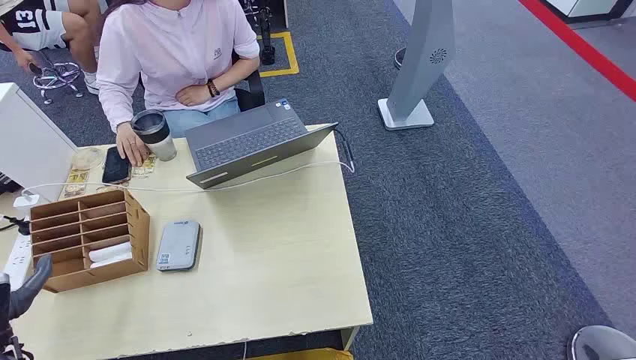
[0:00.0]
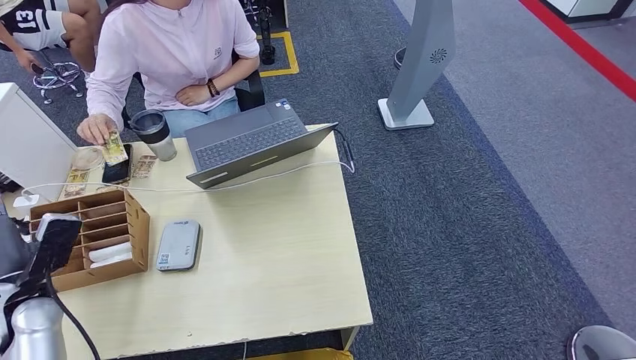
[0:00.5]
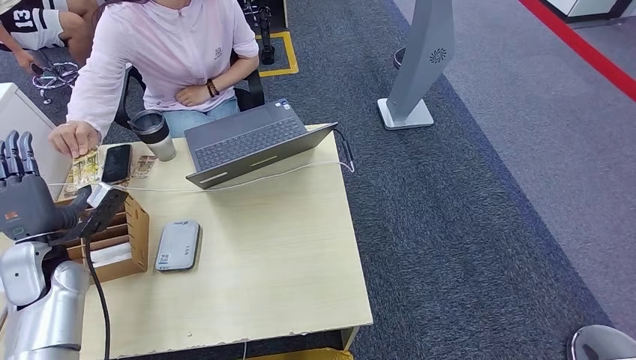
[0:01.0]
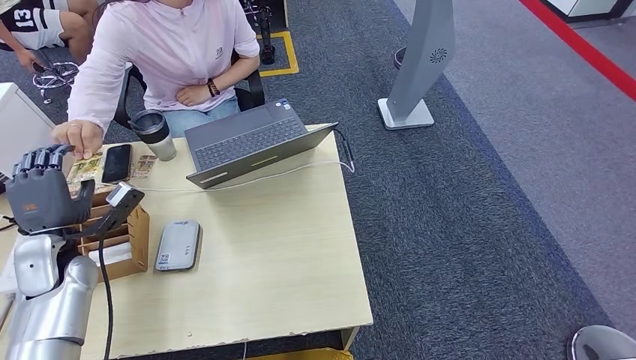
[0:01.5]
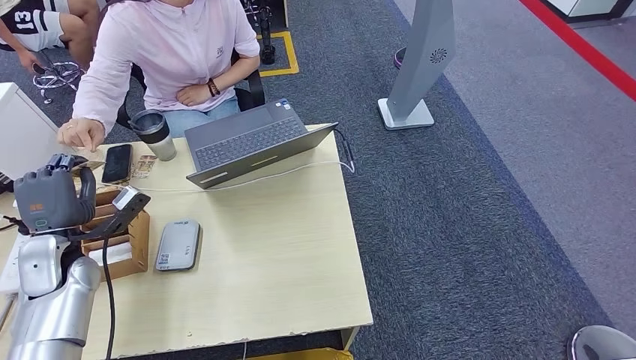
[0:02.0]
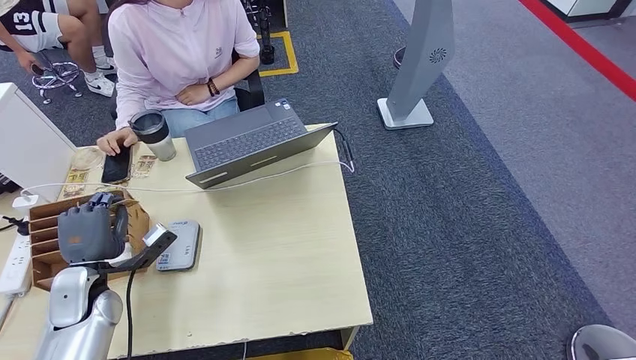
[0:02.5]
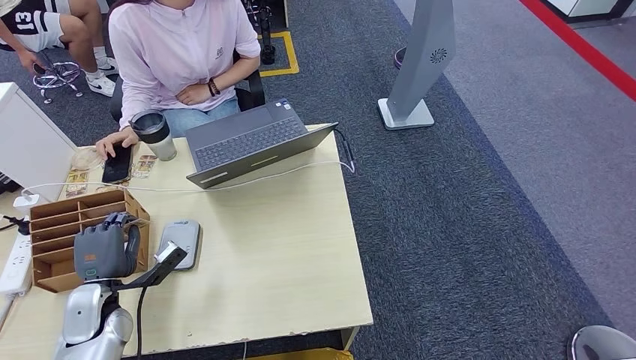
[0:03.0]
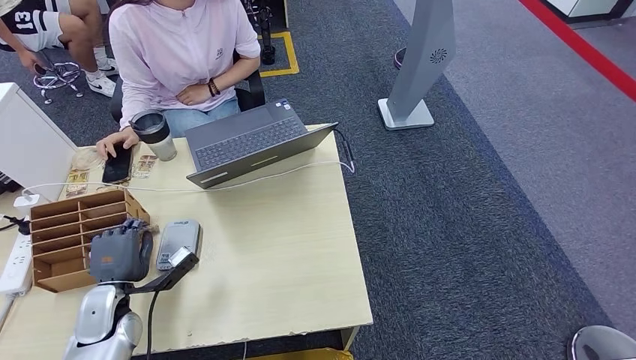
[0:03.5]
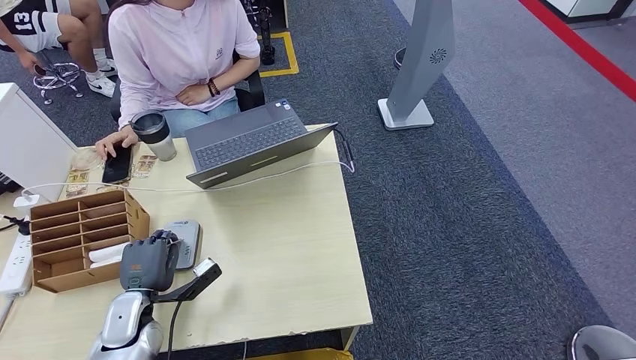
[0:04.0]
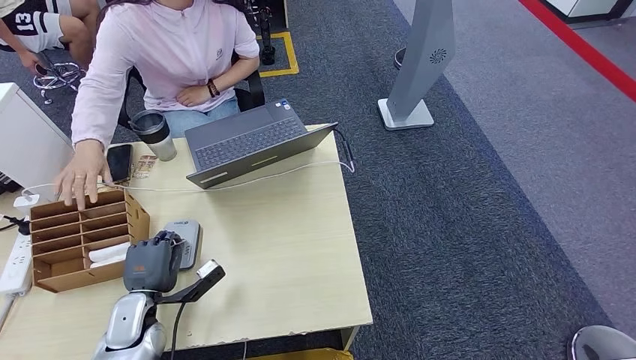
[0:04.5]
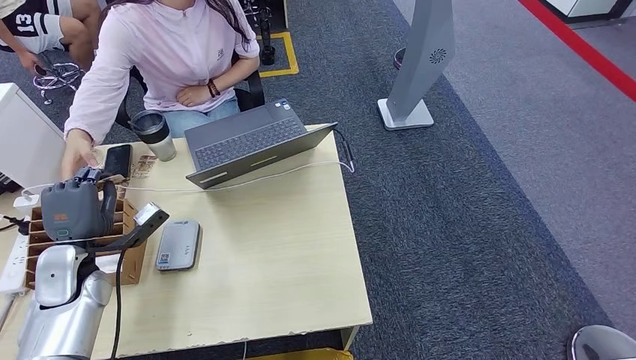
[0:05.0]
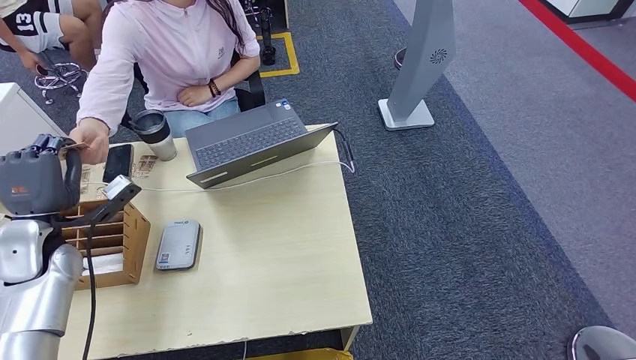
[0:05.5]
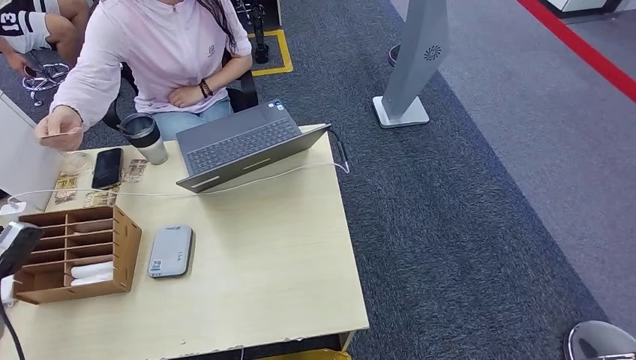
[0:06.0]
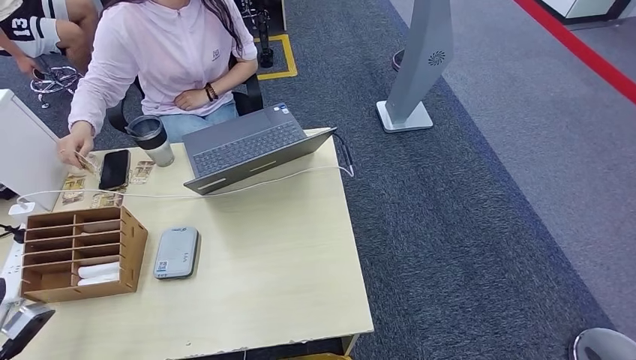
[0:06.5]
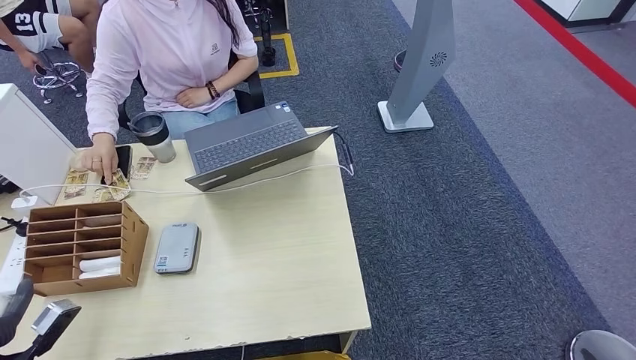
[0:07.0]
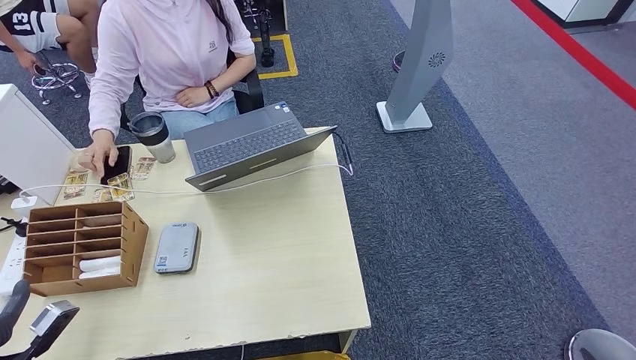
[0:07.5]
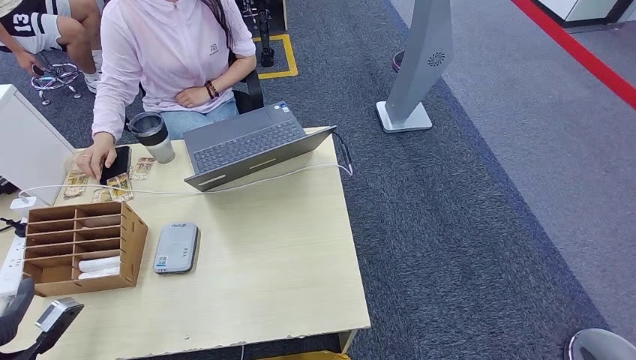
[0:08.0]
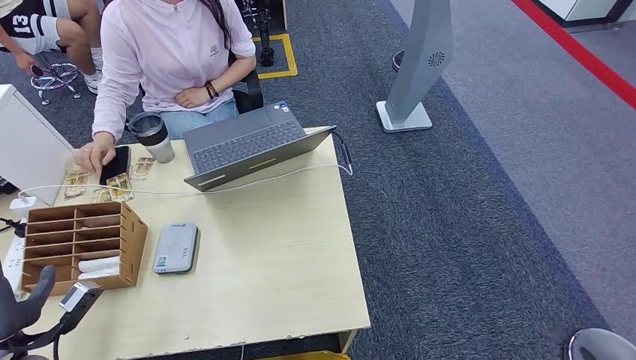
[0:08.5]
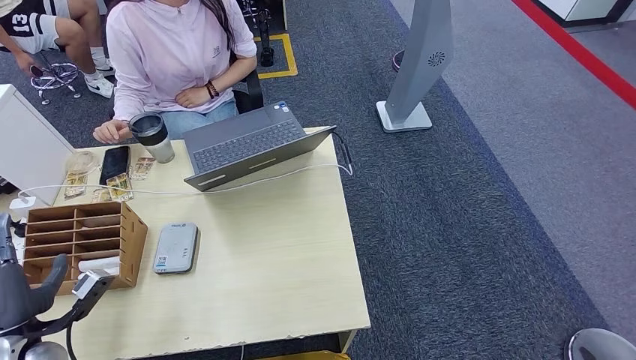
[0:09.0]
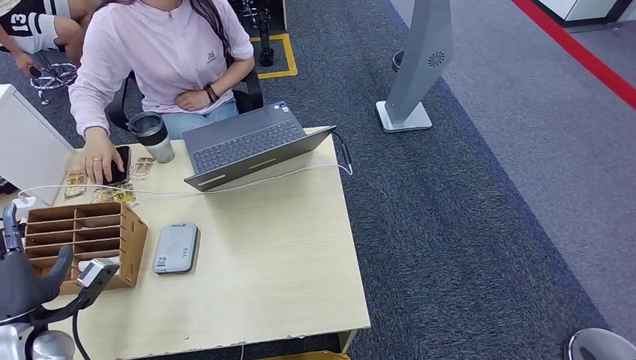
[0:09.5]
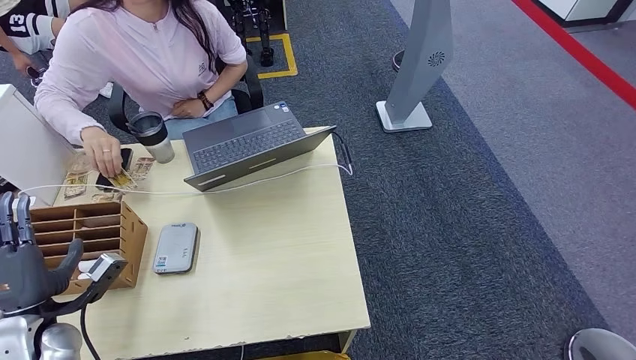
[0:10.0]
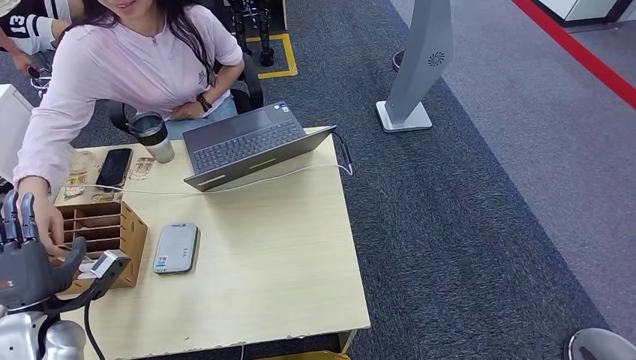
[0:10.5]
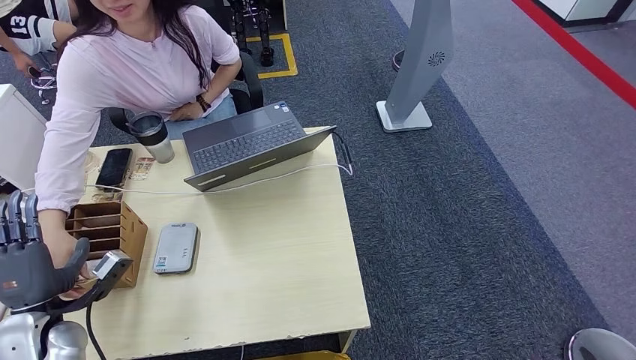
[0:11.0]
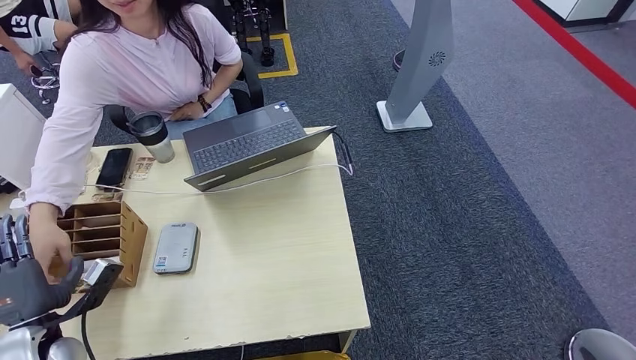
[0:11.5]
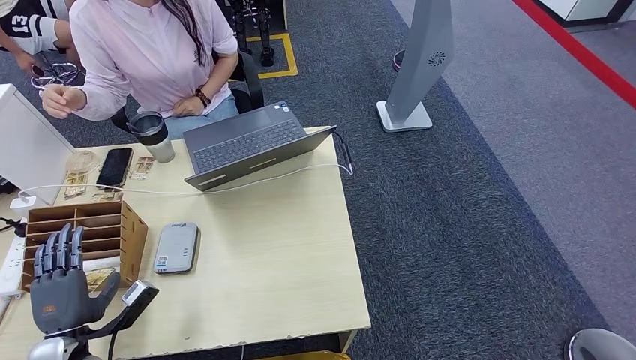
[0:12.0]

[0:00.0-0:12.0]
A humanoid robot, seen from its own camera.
Step, 0:00.0 to 0:01.5: Take the ID card from the person's hand.
Step, 0:02.5 to 0:04.5: Place the ID card on the card reader.
Step, 0:05.0 to 0:06.0: Hand the ID card to the person.
0:02.0 to 0:04.0: The left hand travels downward, backward and to the right by about 15 cm.
0:08.0 to 0:10.0: The left hand moves forward and to the right, about 10 cm.
0:10.0 to 0:12.0: The left hand goes some 5 cm downward.

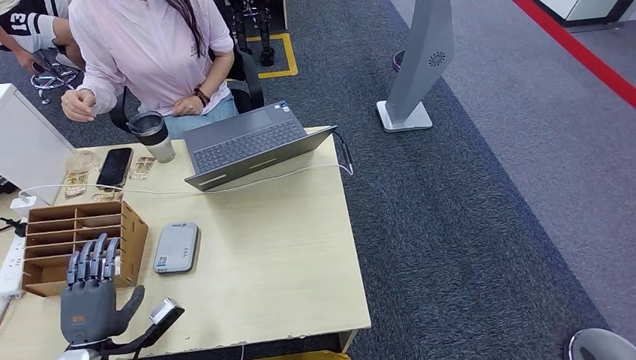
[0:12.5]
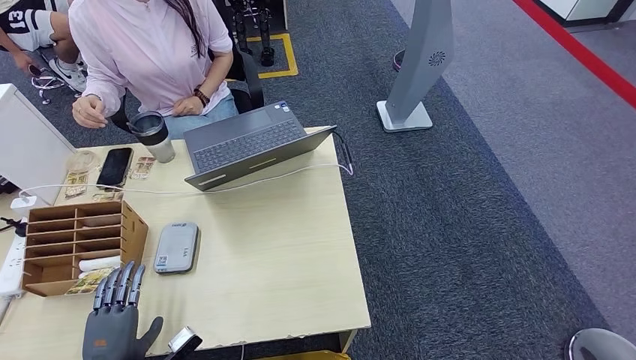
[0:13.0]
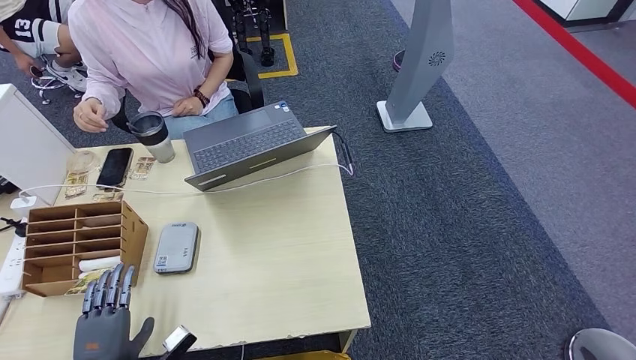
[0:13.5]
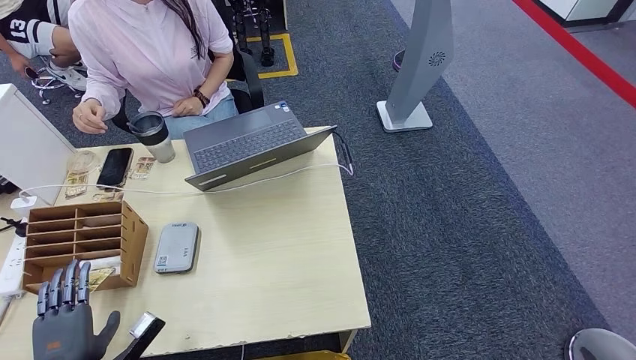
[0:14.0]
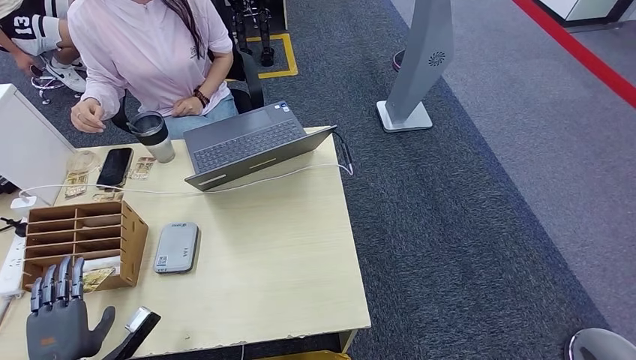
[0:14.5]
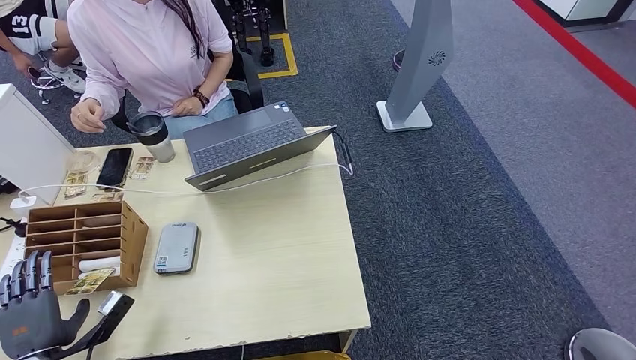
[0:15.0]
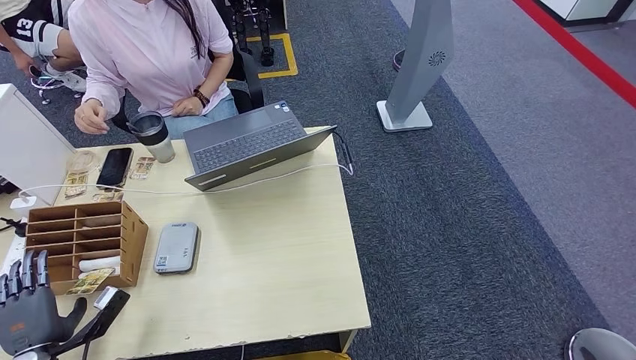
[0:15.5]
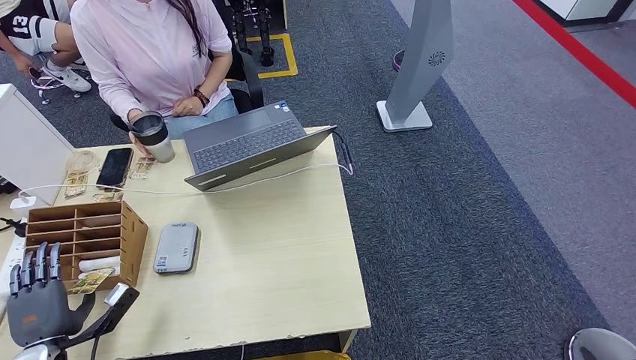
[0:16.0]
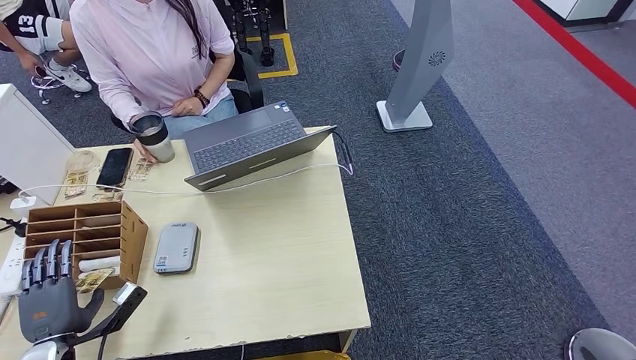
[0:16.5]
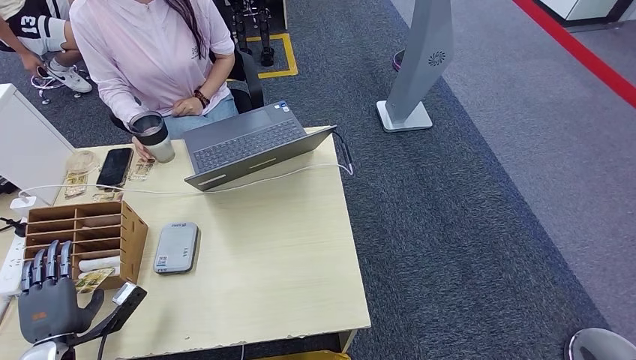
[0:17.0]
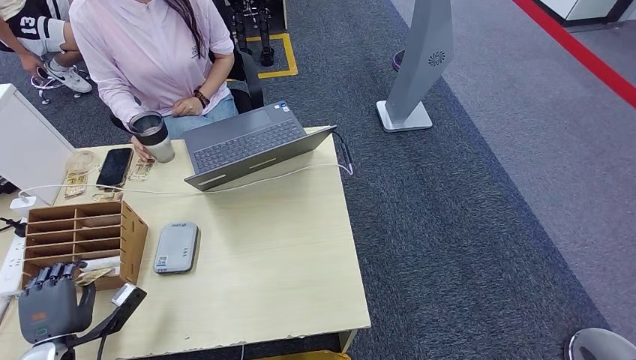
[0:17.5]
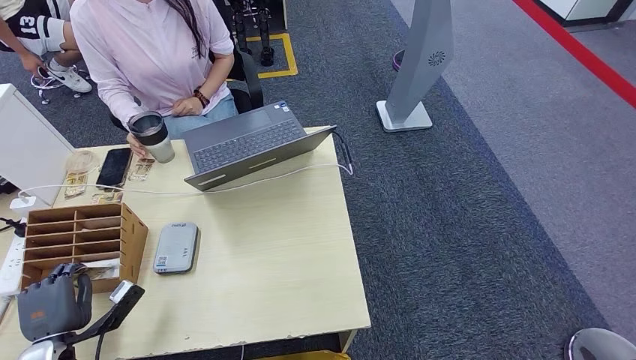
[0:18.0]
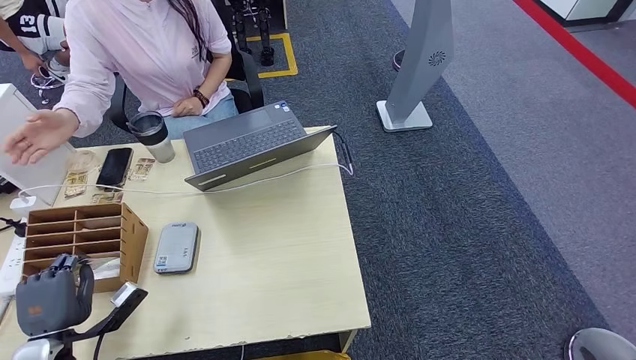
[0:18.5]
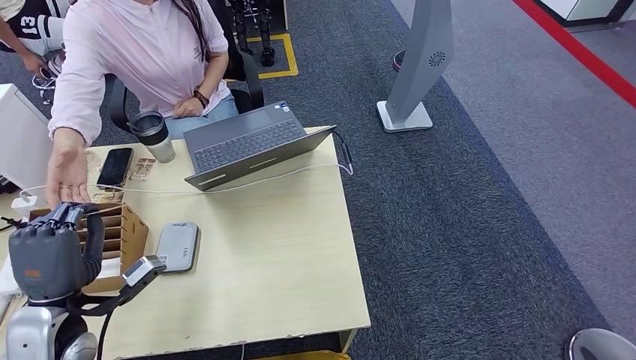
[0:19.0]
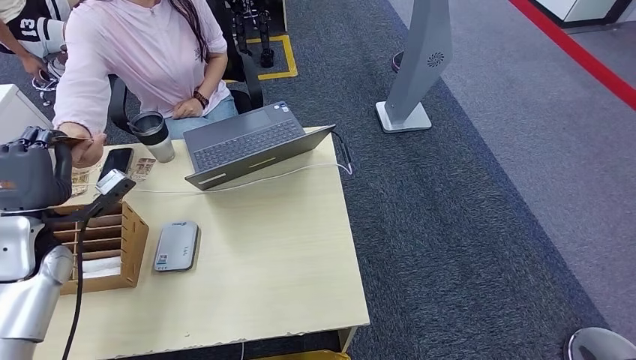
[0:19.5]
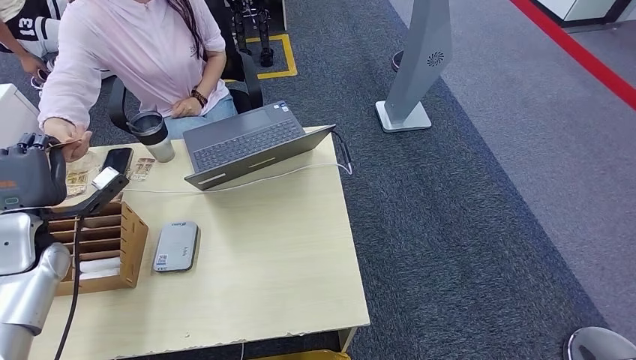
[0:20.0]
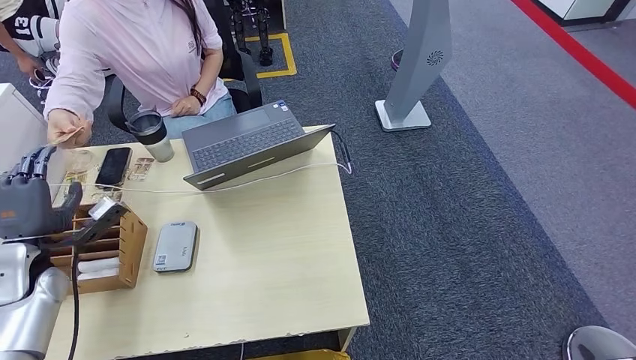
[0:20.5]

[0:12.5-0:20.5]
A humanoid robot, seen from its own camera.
Step, 0:17.5 to 0:18.5: Pick up the room key from the key card box.
Step, 0:19.0 to 0:20.5: Hand the room key to the person.
0:12.5 to 0:14.5: The hands move only a little.
0:14.5 to 0:16.5: The left hand moves approximately 5 cm.
0:16.5 to 0:18.5: There are only small adjustments of the hands.
0:18.5 to 0:20.5: The left hand moves forward and upward, about 15 cm.
